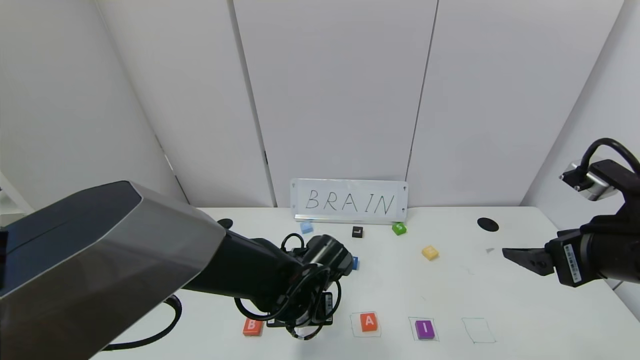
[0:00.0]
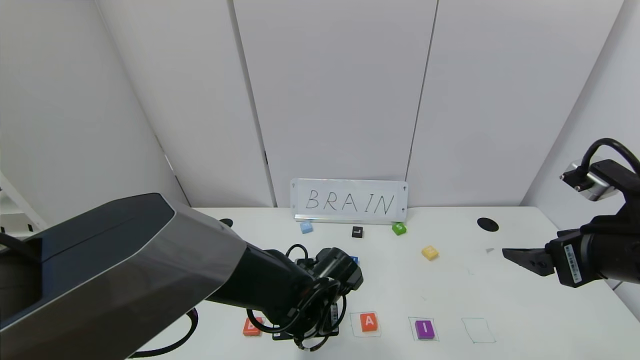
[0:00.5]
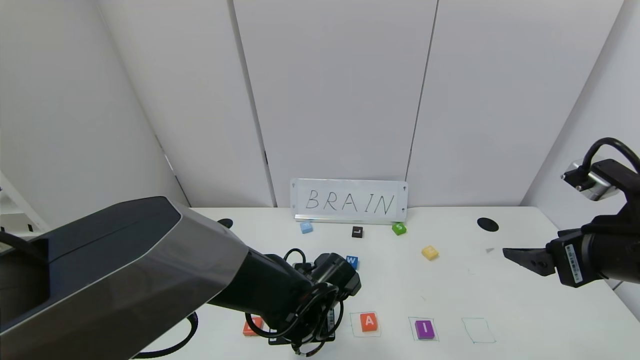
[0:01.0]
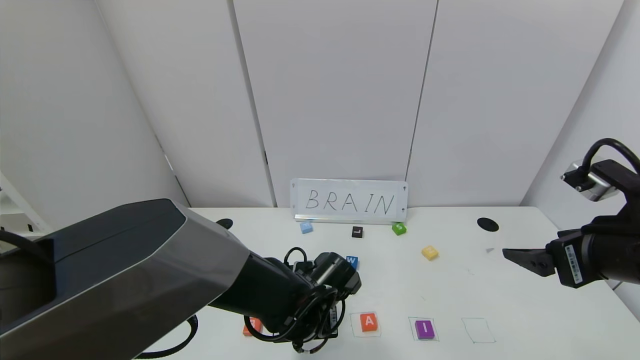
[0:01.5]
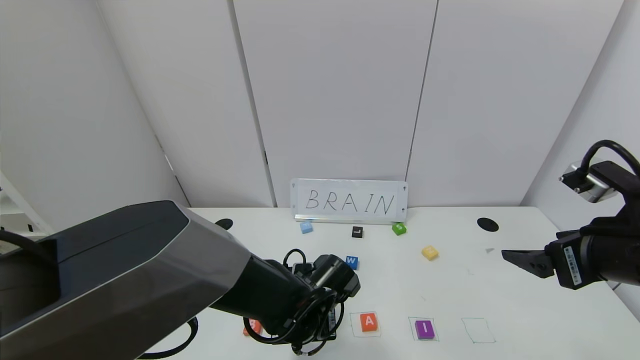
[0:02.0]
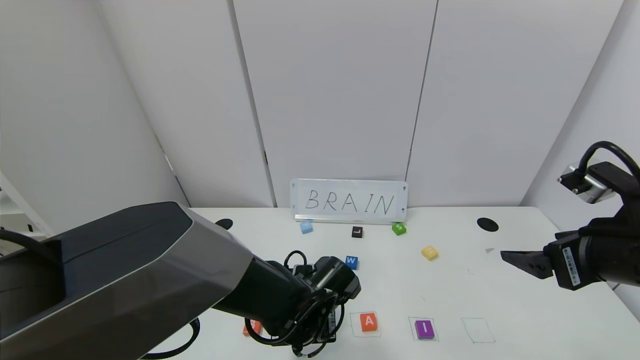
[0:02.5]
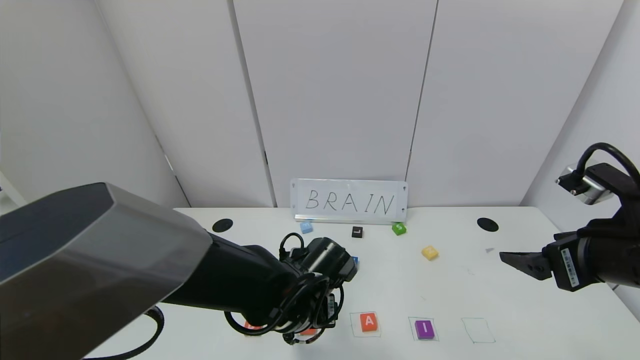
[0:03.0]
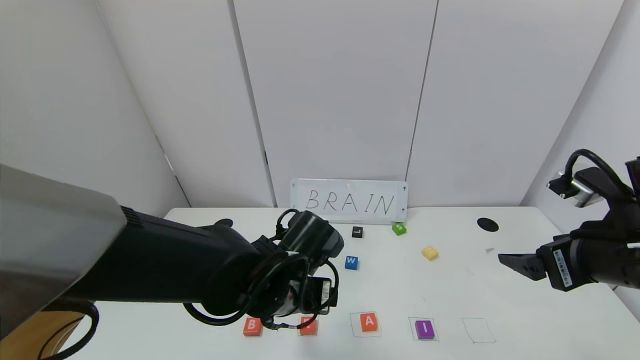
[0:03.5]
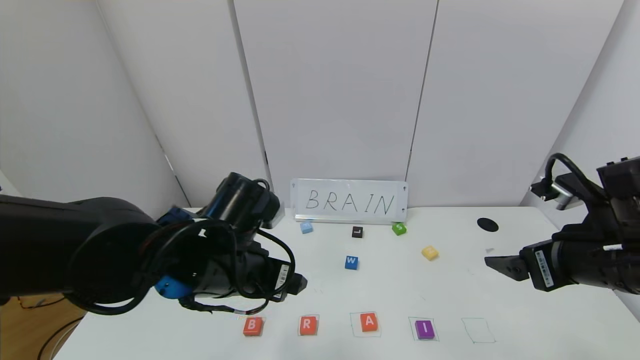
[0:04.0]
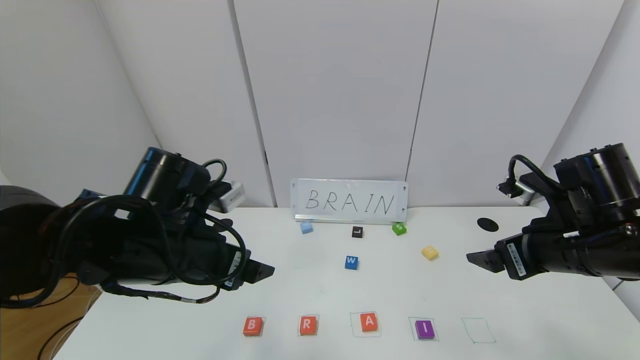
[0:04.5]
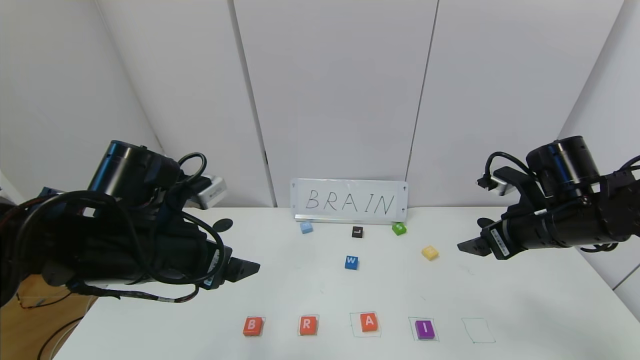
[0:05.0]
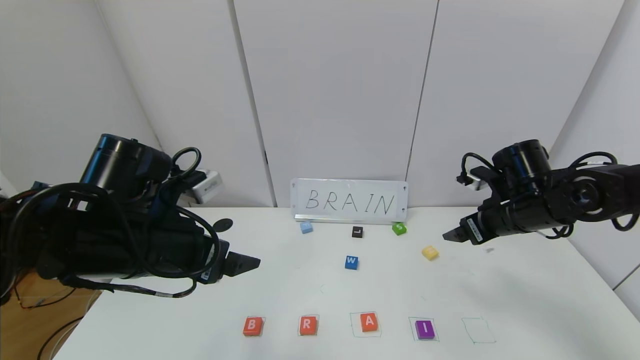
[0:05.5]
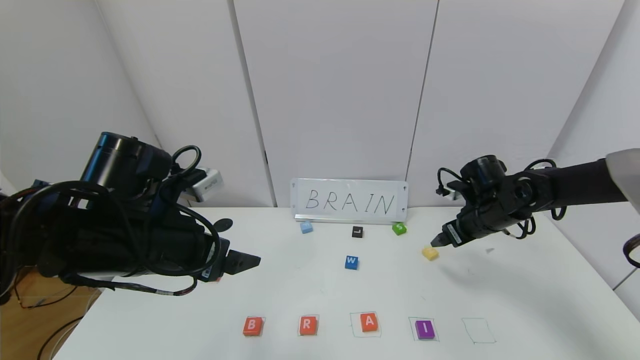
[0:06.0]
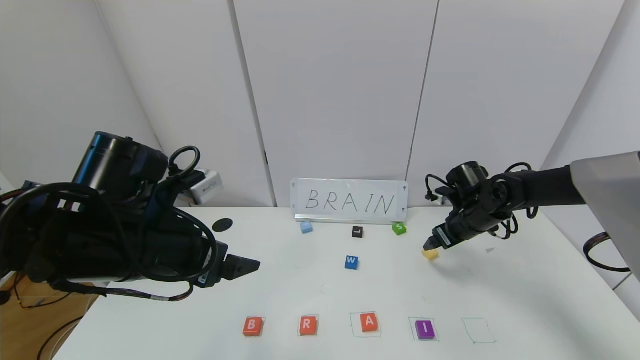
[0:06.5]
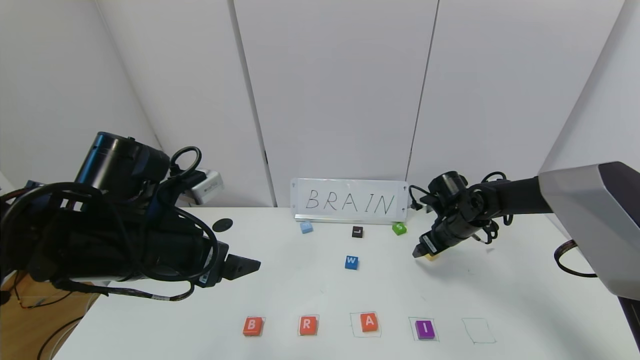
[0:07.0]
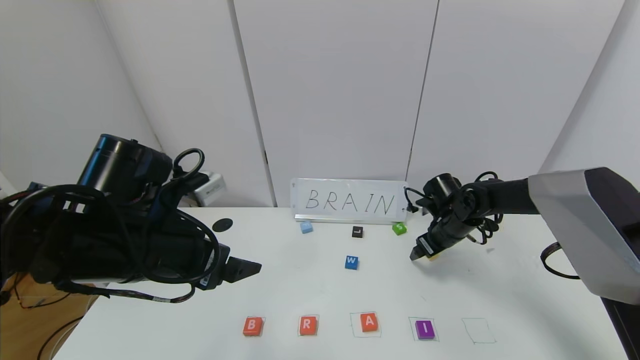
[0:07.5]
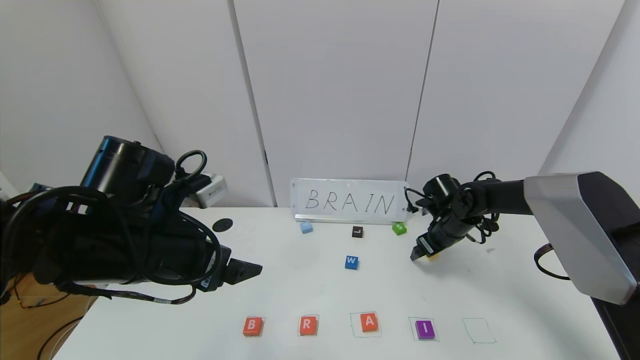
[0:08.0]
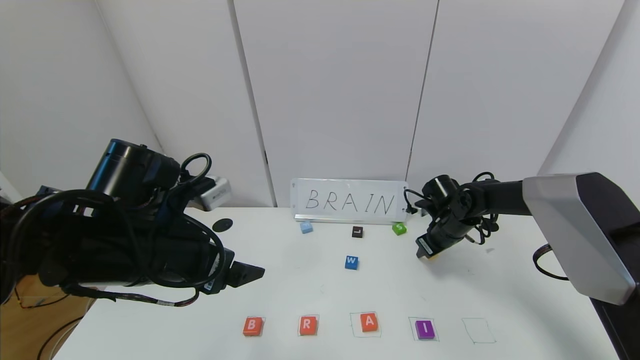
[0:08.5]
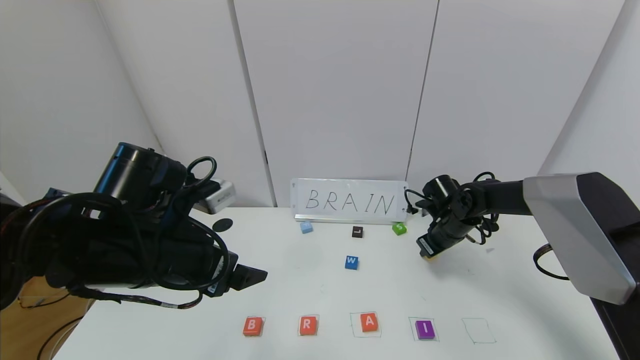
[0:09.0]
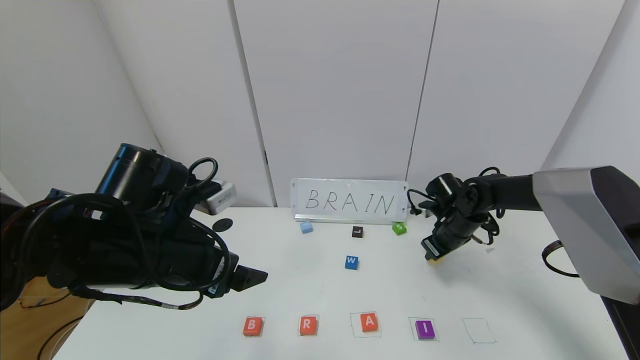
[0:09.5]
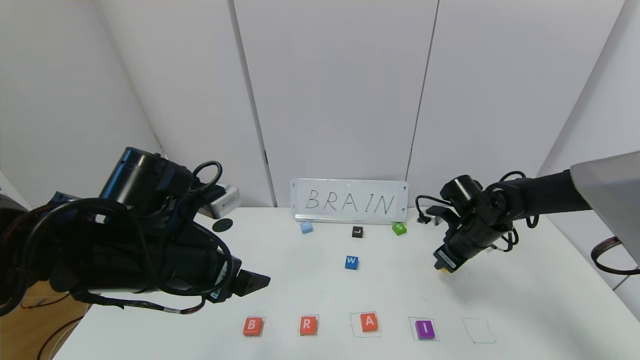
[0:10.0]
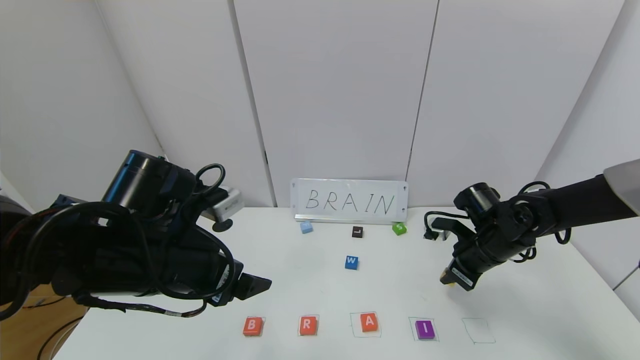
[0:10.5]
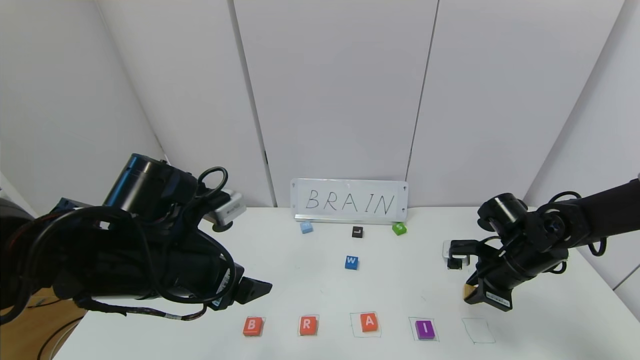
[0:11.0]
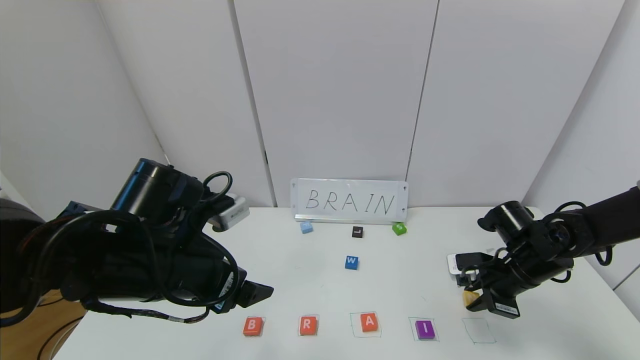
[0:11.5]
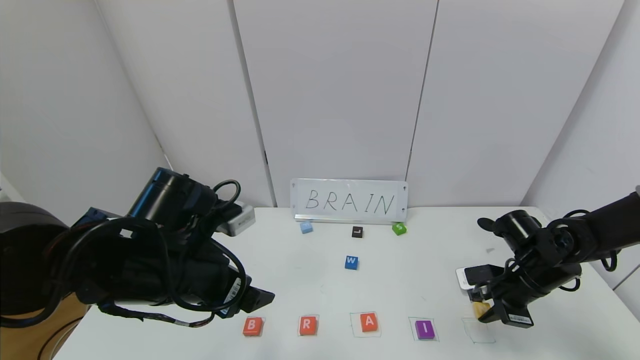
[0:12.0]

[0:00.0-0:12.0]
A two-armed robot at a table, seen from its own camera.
Task of the whole recording: use the gripper to find blocks with the letters b, a, a, and i on the table and arrange them into BAAI, then find r and N and turn the arranged baai into brian.
Step, 0:00.0 to 0:02.5: Place the block R in the second location.
0:00.0 to 0:02.0: The grippers make only small movements.
0:02.0 to 0:04.0: The left gripper is displaced upward and to the left by about 15 cm, and opens its fingers.
0:04.0 to 0:06.0: The right gripper heads forward and downward, covering approximately 20 cm. Meanwhile the left gripper shifts about 10 cm to the left.
0:06.0 to 0:08.0: The right gripper is displaced downward by approximately 5 cm.
0:08.0 to 0:10.0: The right gripper heads backward, covering approximately 5 cm, and closes up.
0:10.0 to 0:12.0: The right gripper shifts about 10 cm backward and to the right.

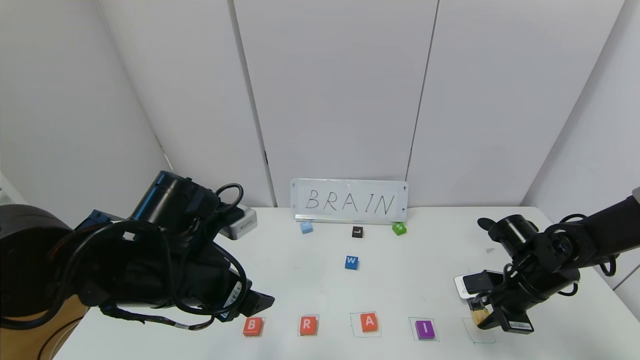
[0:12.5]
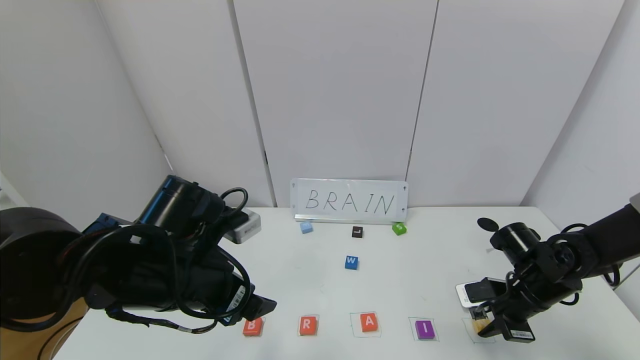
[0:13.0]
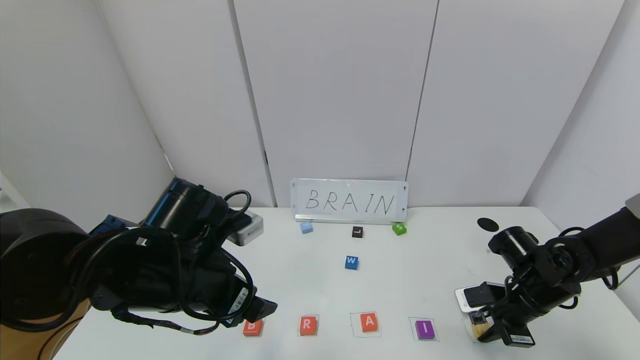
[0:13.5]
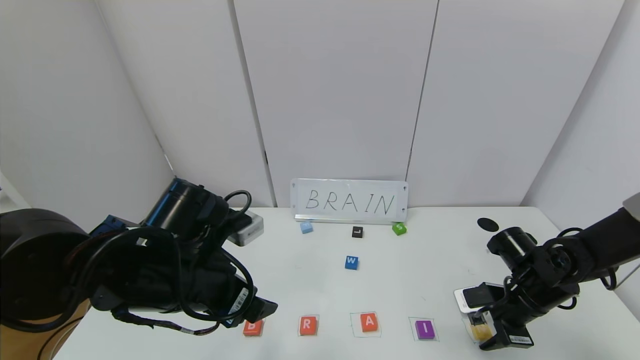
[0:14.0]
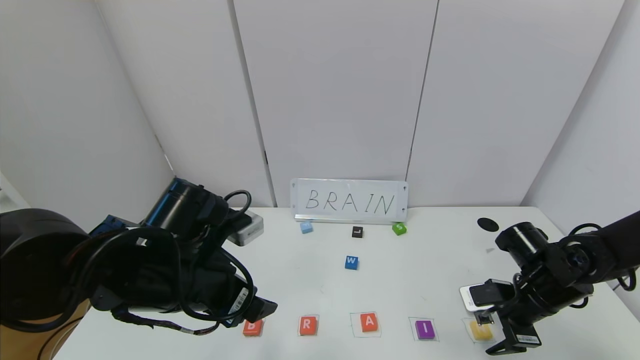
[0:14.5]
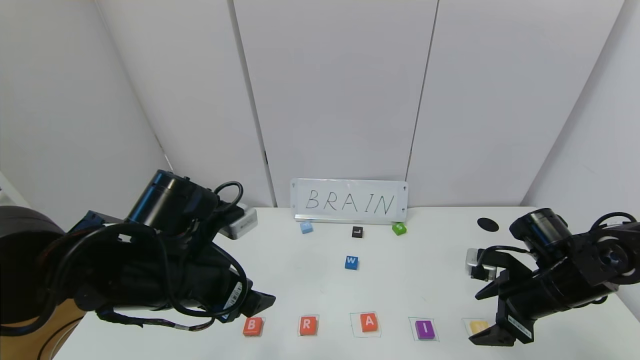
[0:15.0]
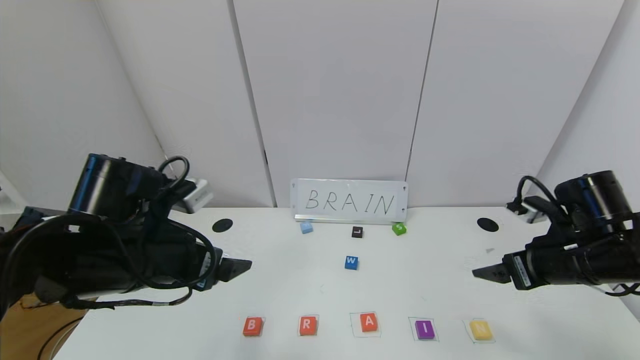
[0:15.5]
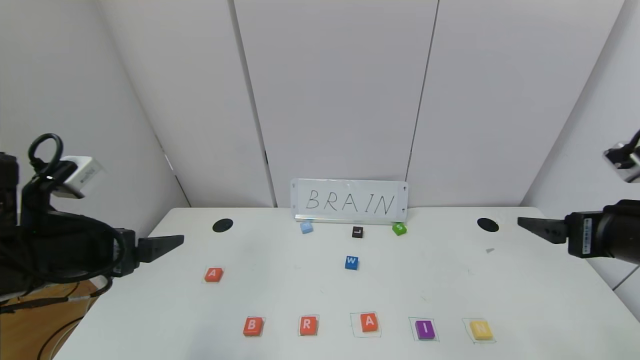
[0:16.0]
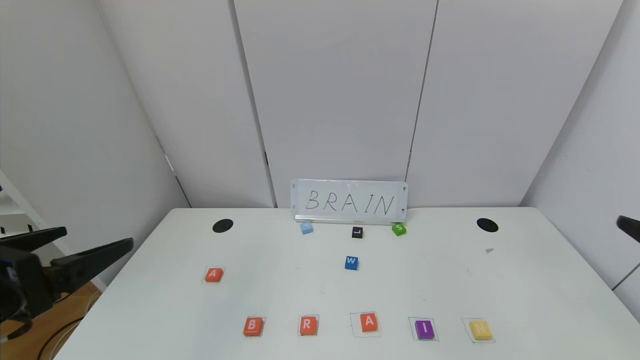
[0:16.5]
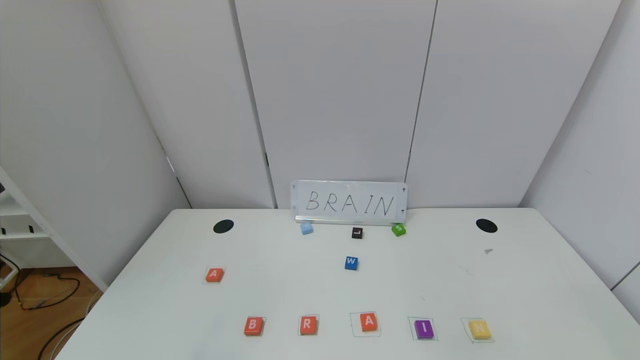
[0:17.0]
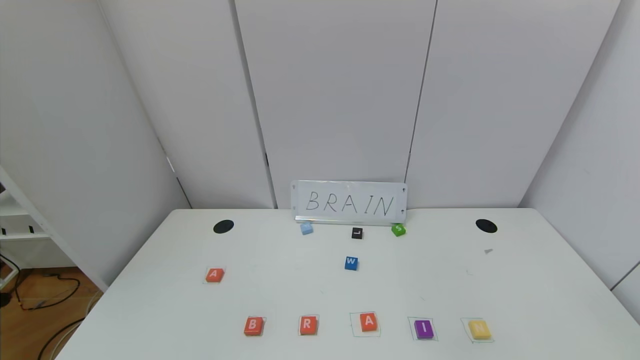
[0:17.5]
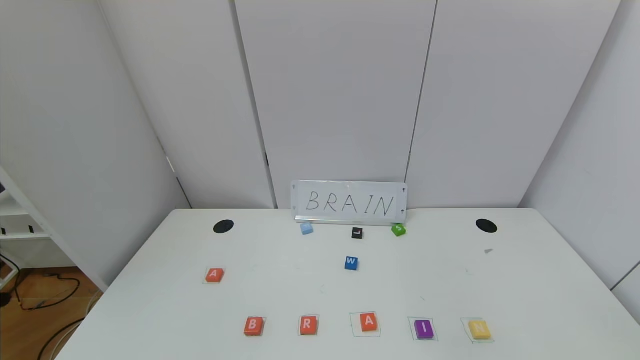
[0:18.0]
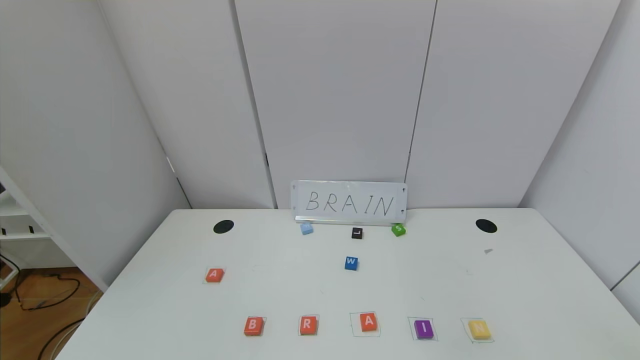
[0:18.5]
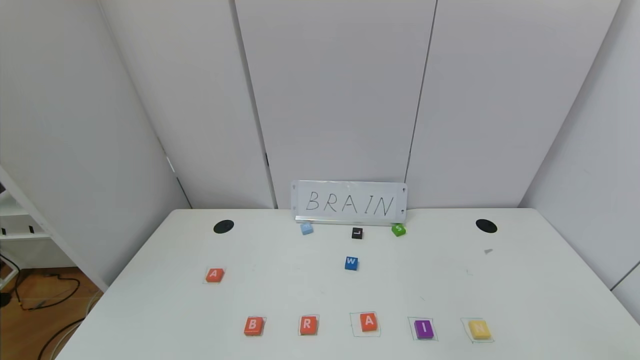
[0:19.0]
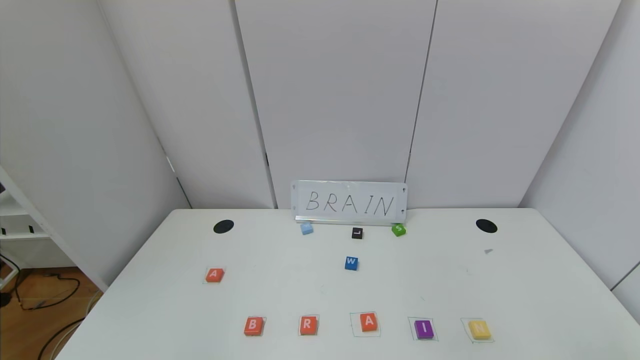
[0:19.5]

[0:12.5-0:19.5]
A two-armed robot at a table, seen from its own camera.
Task of the whole recording: use the gripper to find blocks with the letters b, a, a, and i on the table and arrange them into BAAI, then find r and N and turn the arranged baai into brian.
0:12.5 to 0:14.5: The right gripper opens.
0:14.5 to 0:16.0: The right gripper travels upward and backward by some 20 cm. Meanwhile the left gripper is displaced to the left by roughly 10 cm.
0:16.0 to 0:17.5: Both grippers travel together backward, some 25 cm.
